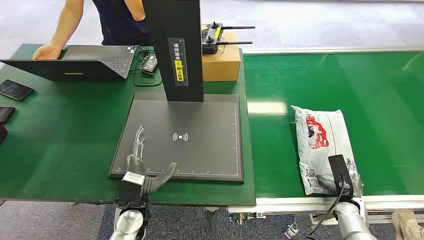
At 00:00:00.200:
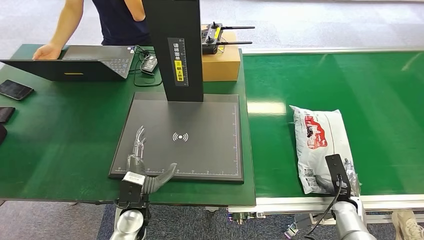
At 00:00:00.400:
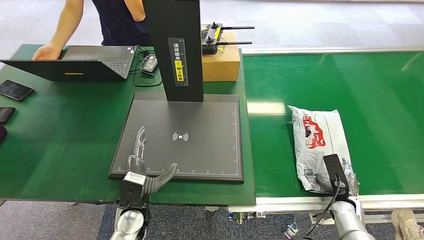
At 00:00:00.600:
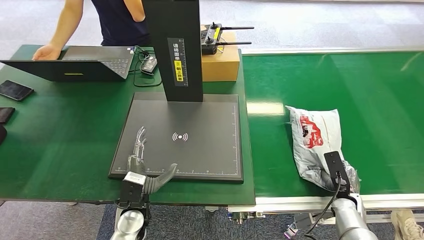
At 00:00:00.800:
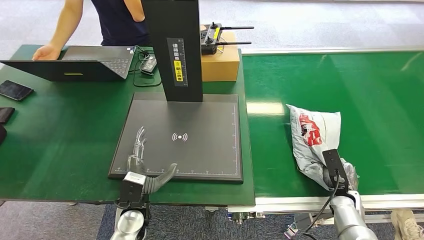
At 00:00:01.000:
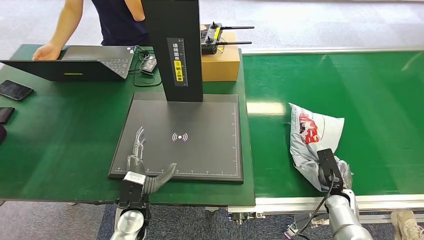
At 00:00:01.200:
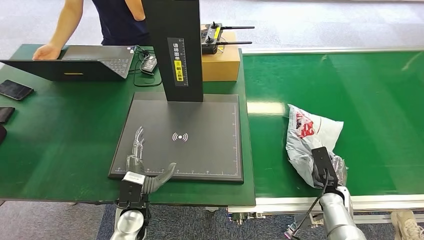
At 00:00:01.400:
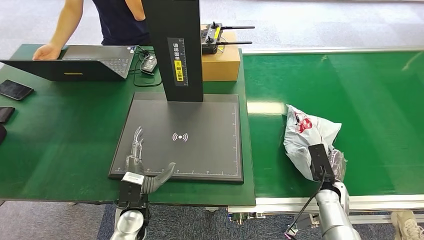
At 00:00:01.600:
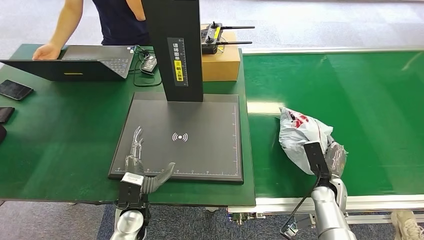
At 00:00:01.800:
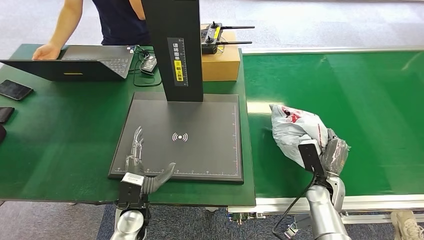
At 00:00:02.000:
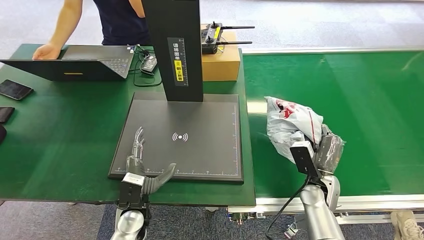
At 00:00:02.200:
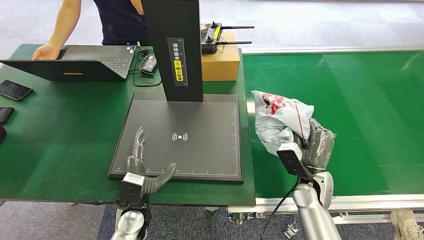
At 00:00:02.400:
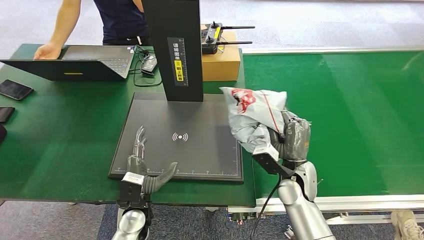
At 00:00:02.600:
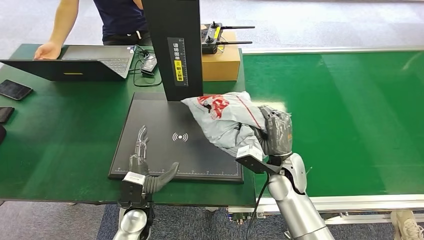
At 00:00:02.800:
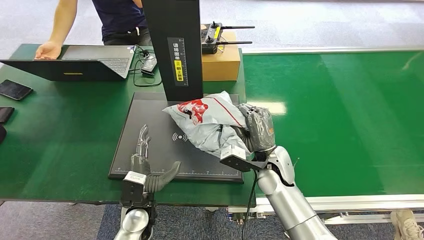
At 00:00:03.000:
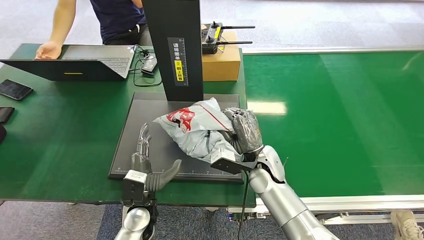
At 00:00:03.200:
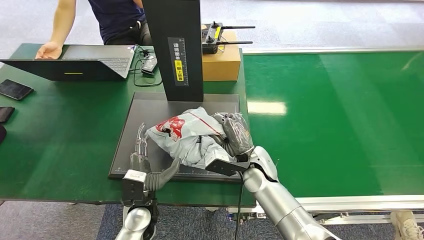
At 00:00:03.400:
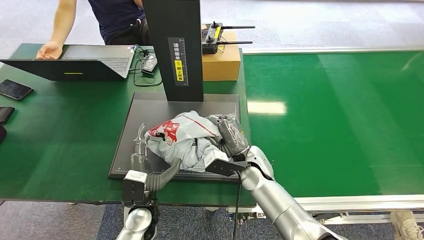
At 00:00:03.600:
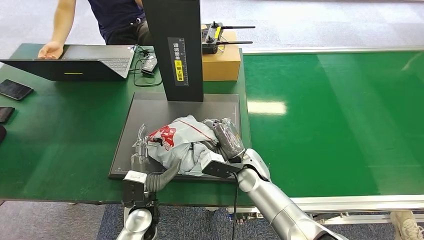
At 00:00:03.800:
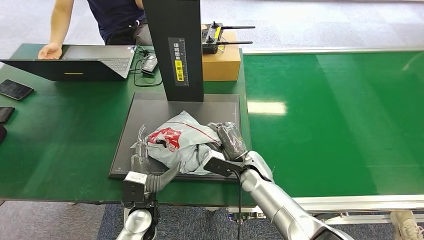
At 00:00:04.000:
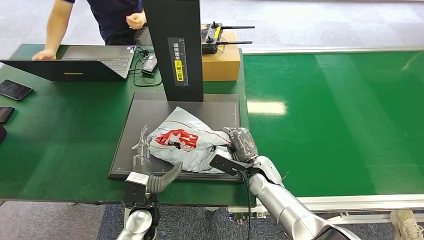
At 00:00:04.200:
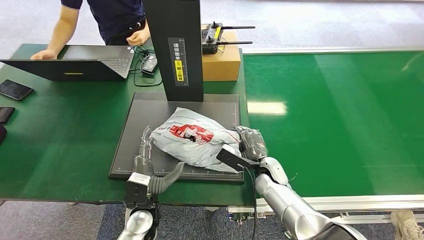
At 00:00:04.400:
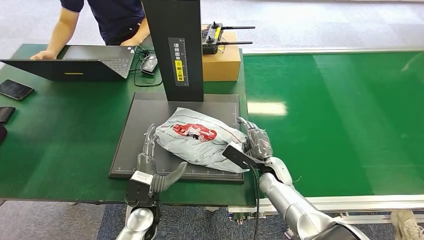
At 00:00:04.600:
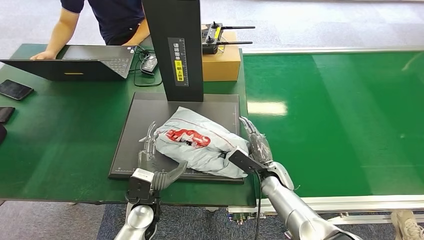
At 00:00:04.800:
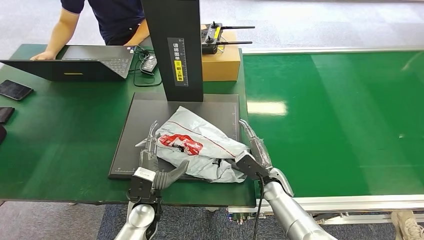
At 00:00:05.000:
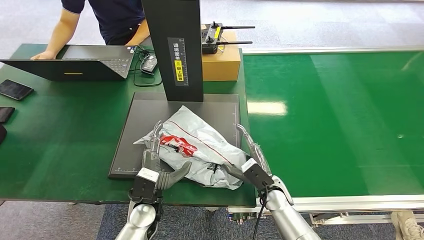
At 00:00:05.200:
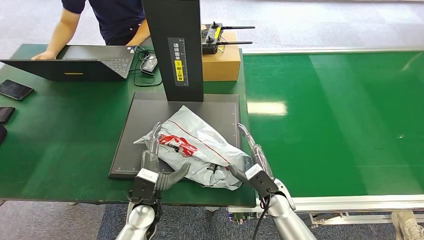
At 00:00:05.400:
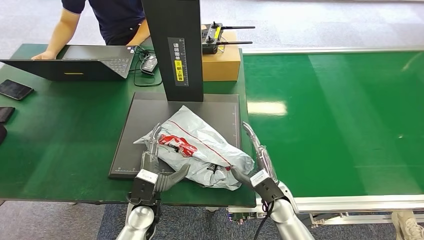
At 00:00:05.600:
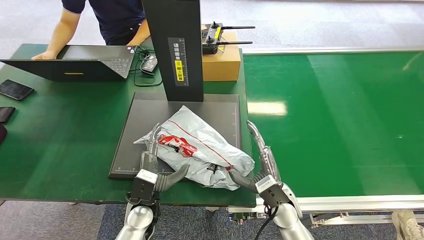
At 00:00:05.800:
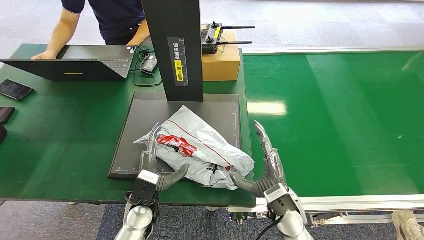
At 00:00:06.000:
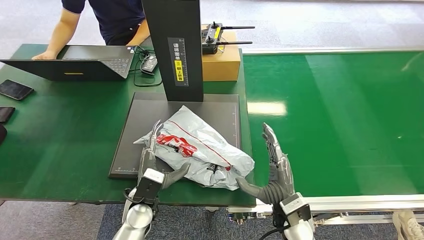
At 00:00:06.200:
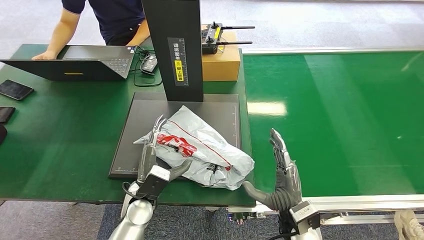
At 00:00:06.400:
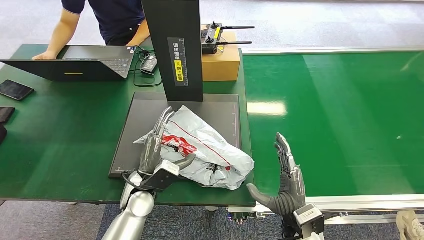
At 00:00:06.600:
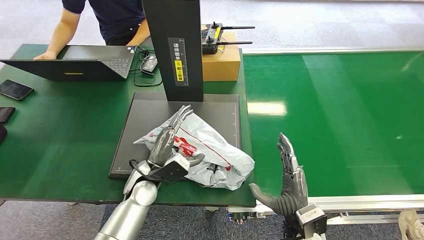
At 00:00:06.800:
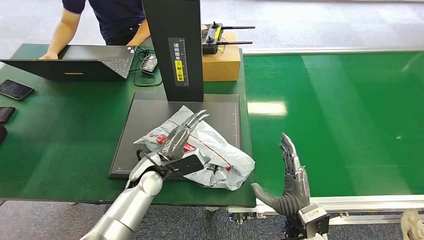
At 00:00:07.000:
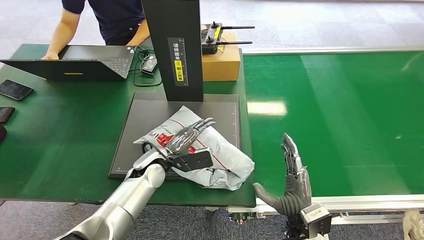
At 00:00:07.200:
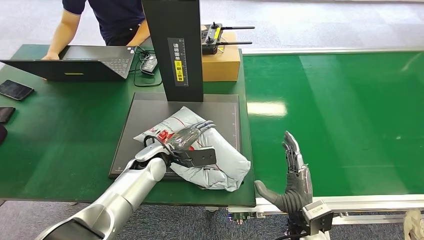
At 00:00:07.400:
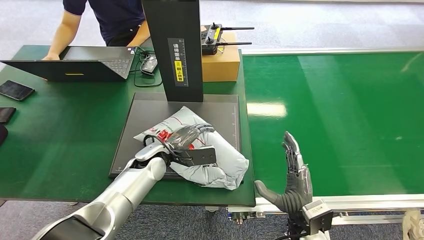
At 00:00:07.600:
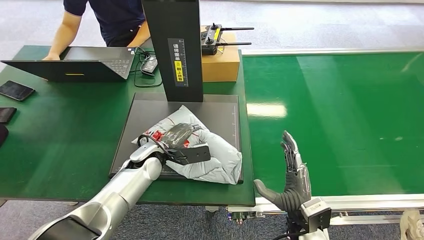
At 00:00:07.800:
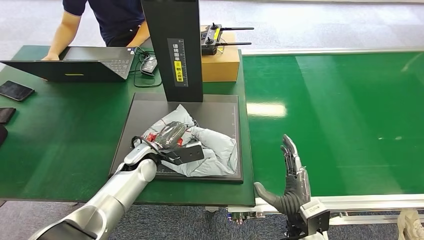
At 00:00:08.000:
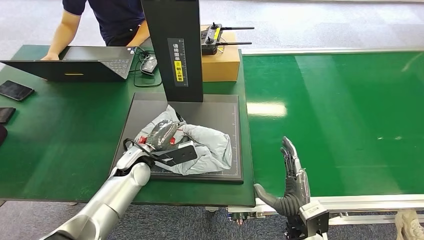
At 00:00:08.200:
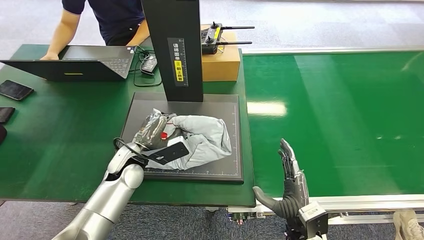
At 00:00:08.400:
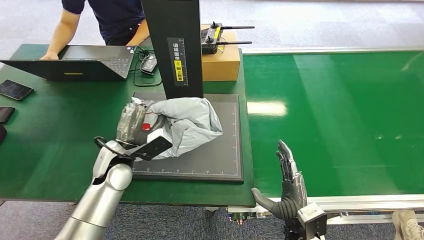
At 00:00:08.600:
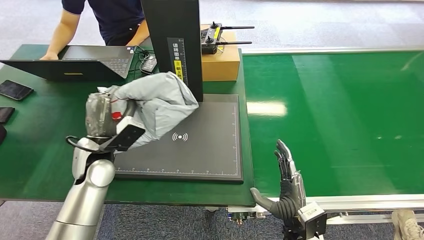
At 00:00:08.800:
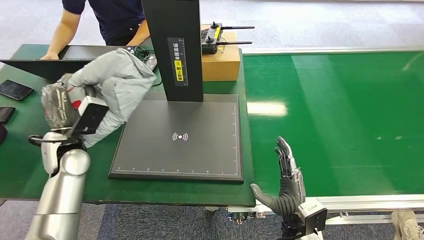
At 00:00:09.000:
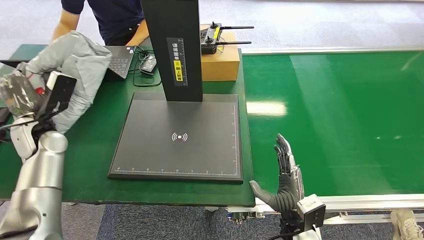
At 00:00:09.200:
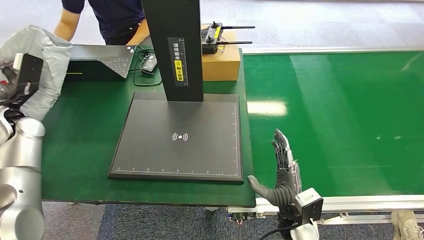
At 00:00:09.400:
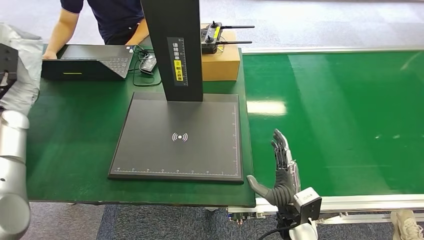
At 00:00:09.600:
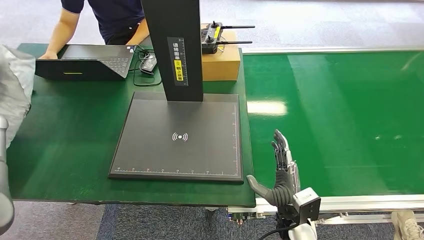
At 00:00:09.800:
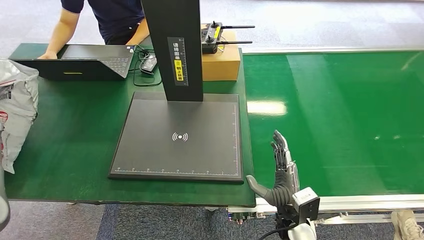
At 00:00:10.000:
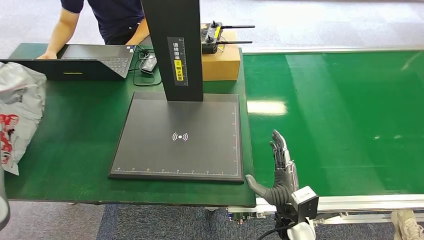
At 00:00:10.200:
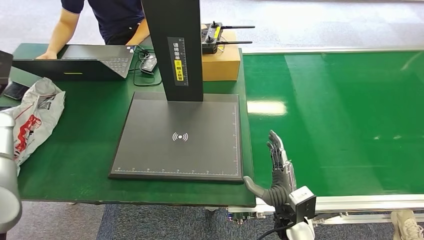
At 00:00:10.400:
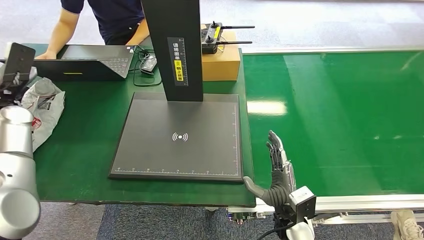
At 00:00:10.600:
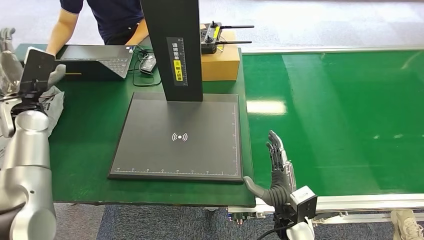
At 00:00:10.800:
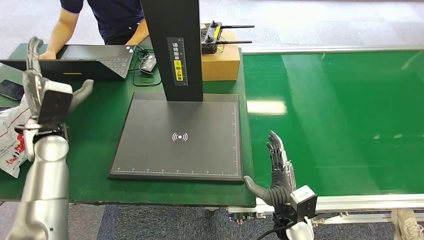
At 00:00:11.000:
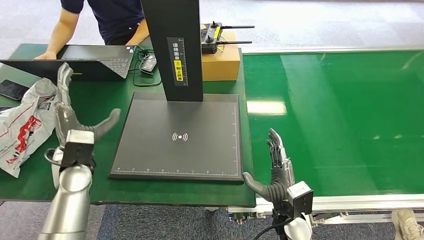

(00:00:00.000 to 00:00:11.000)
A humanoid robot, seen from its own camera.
Step, 00:00:00.000 - 00:00:01.800: Pick up the package from the conveyor belt.
Step, 00:00:02.000 - 00:00:05.800: Place the package onto the inbound machine.
Step, 00:00:06.000 - 00:00:08.600: Pick up the package from the inbound machine.
Step, 00:00:09.000 - 00:00:11.000: Place the package into the parcel locker.
00:00:03.200 - 00:00:04.800: The right hand travels downward and to the right by roughly 10 cm.
00:00:04.800 - 00:00:06.200: The right hand heads backward and upward, covering approximately 15 cm.
00:00:06.200 - 00:00:07.800: The left hand goes roughly 10 cm forward.
00:00:09.400 - 00:00:11.000: The left hand heads to the right, backward and downward, covering about 20 cm.
